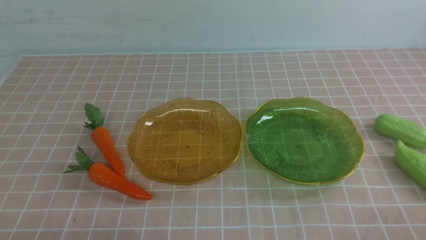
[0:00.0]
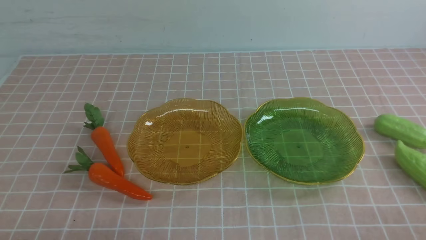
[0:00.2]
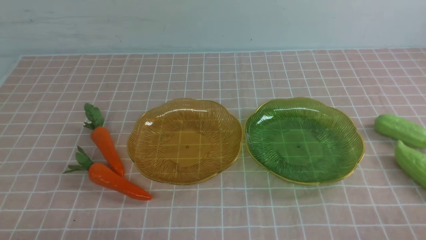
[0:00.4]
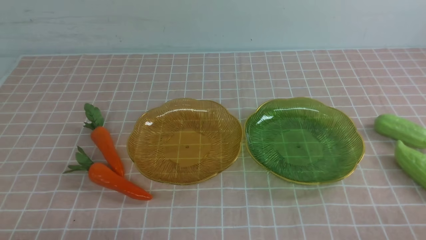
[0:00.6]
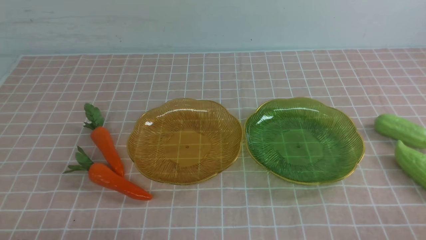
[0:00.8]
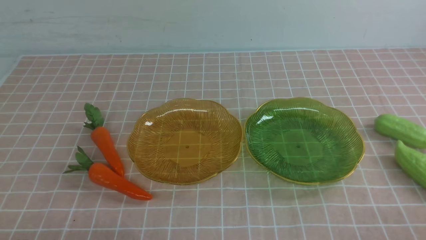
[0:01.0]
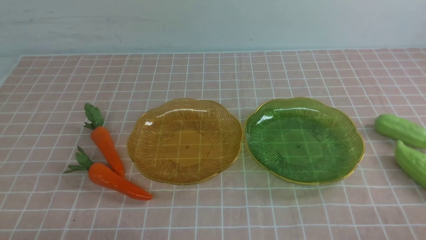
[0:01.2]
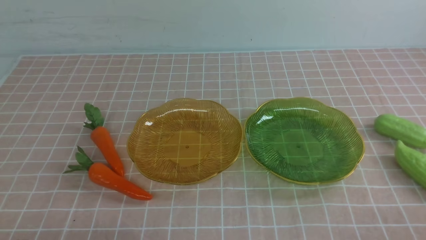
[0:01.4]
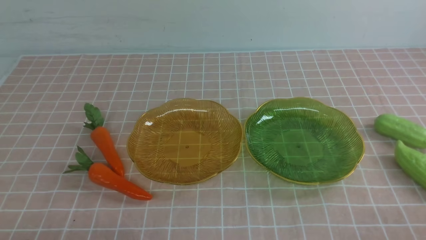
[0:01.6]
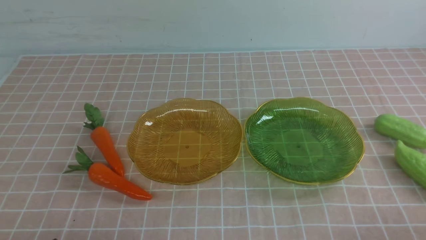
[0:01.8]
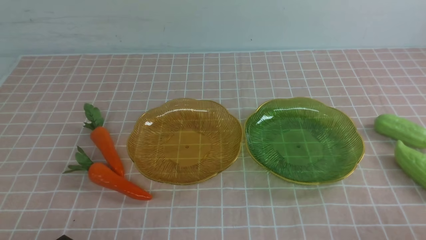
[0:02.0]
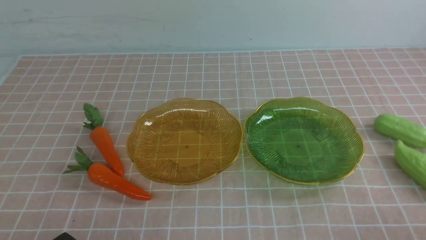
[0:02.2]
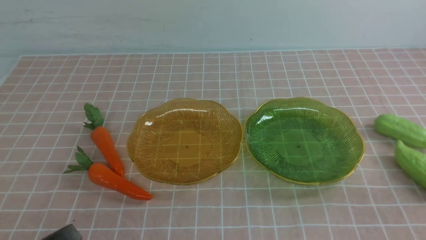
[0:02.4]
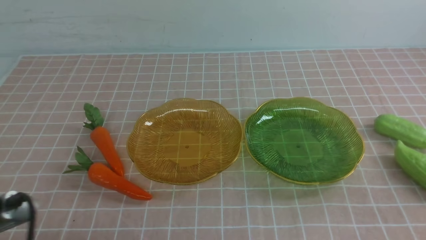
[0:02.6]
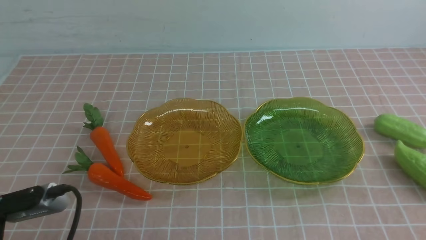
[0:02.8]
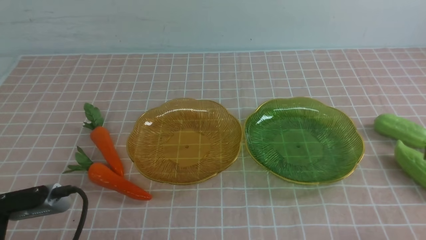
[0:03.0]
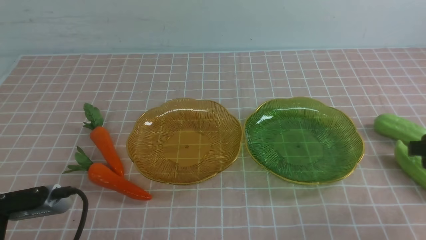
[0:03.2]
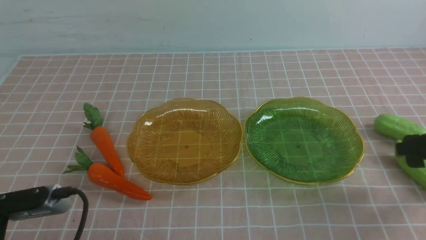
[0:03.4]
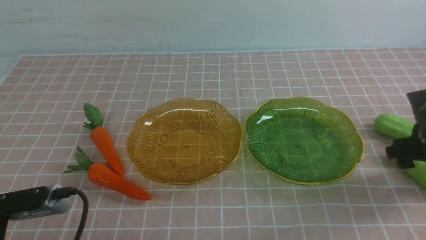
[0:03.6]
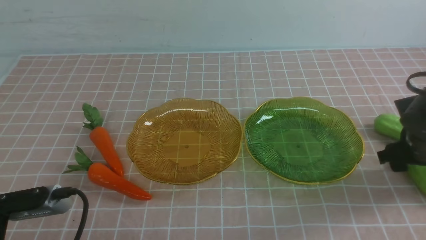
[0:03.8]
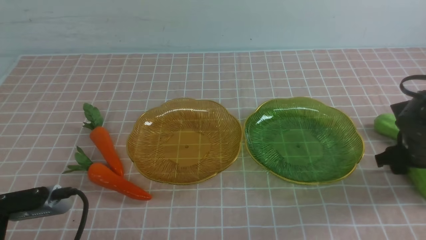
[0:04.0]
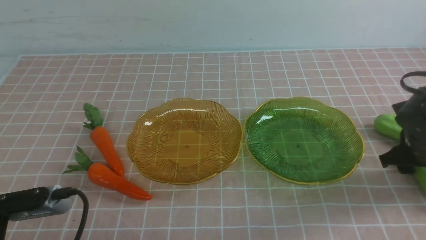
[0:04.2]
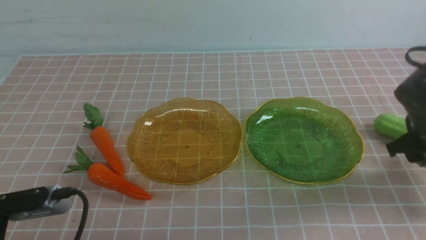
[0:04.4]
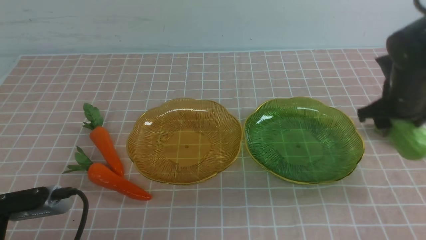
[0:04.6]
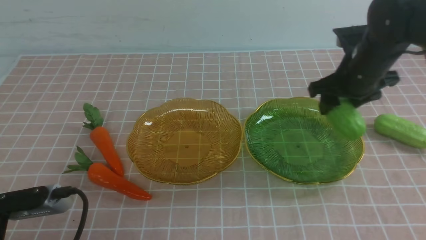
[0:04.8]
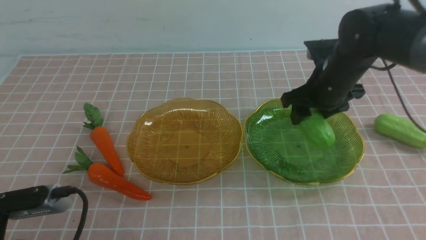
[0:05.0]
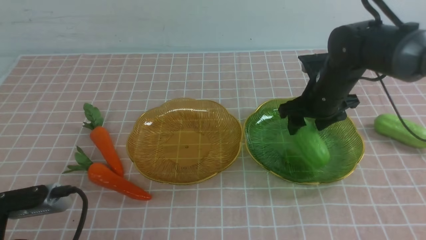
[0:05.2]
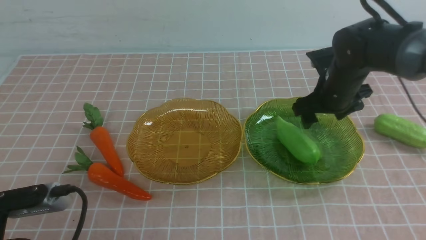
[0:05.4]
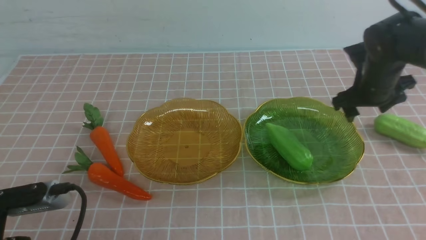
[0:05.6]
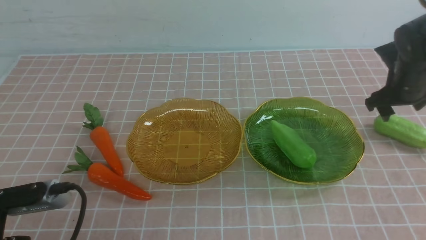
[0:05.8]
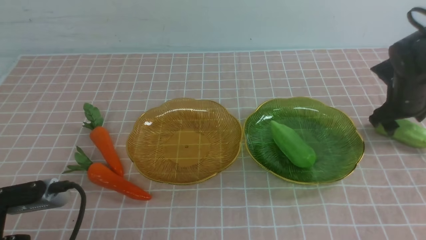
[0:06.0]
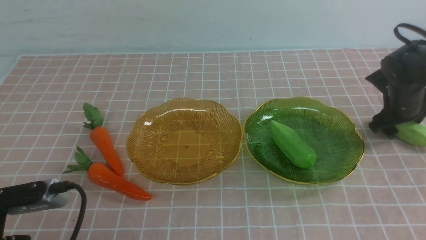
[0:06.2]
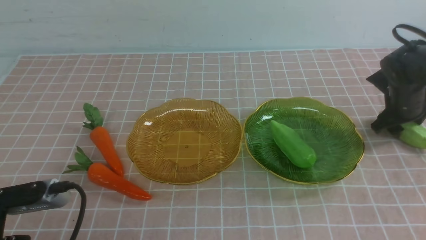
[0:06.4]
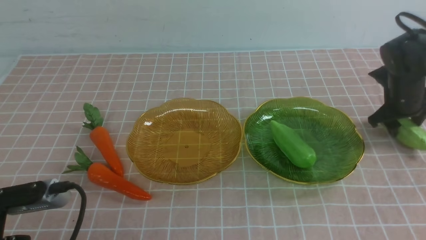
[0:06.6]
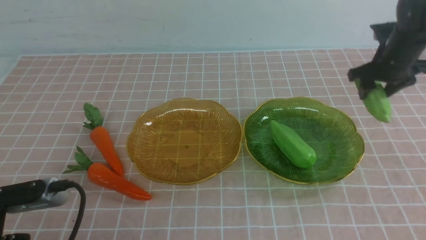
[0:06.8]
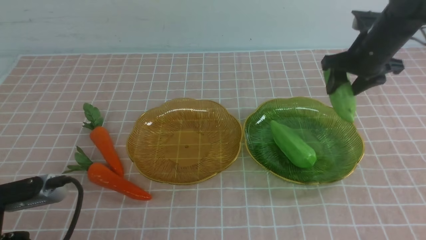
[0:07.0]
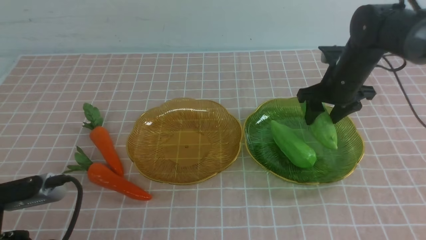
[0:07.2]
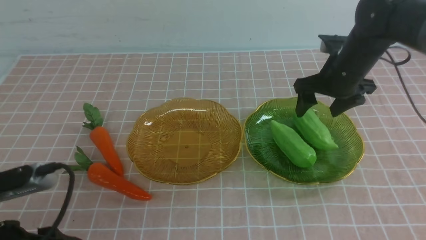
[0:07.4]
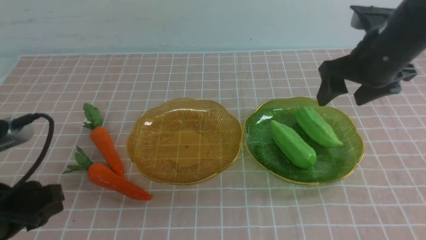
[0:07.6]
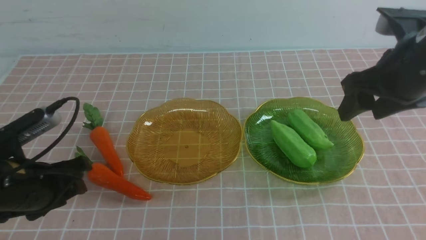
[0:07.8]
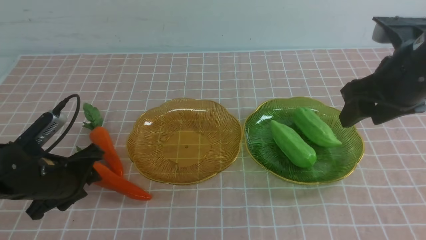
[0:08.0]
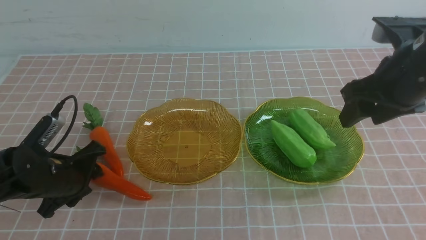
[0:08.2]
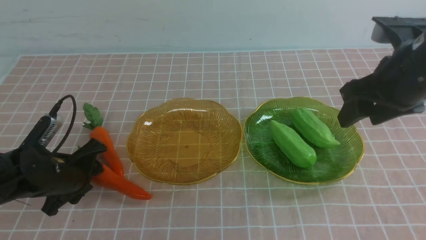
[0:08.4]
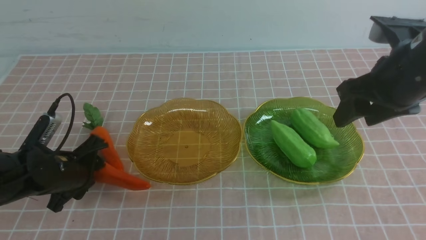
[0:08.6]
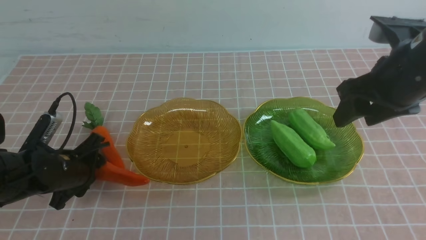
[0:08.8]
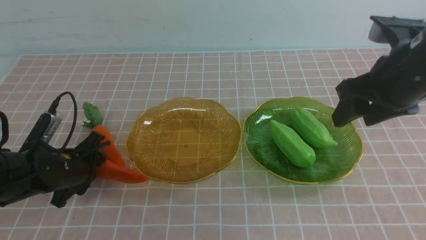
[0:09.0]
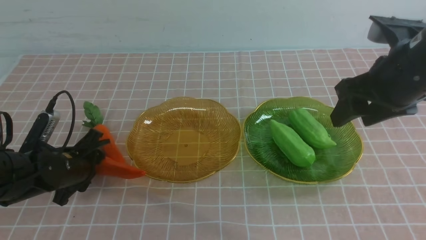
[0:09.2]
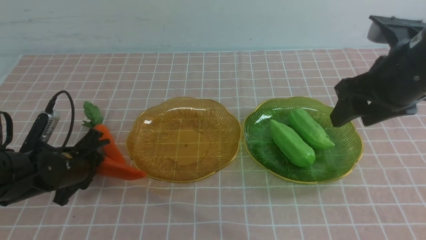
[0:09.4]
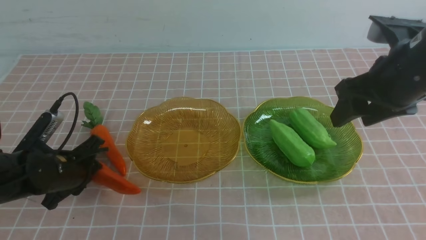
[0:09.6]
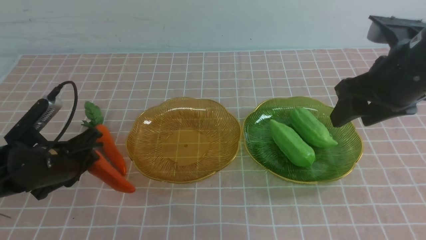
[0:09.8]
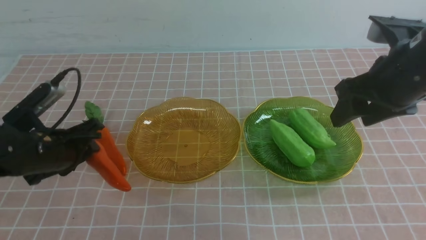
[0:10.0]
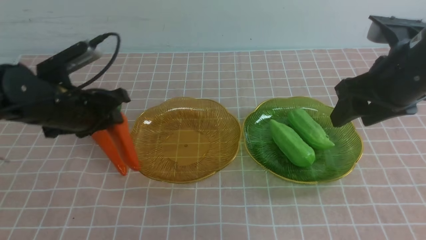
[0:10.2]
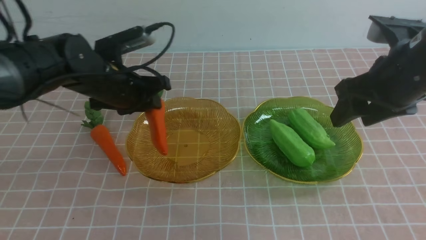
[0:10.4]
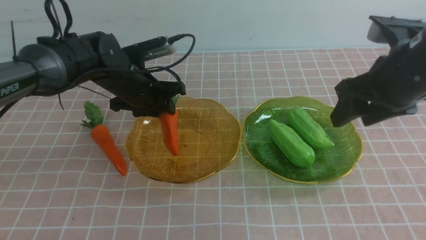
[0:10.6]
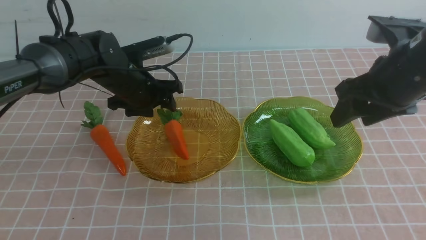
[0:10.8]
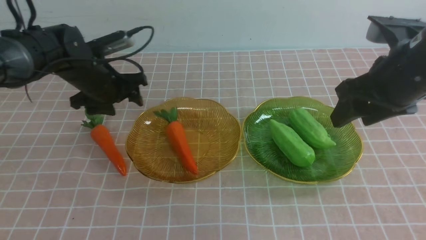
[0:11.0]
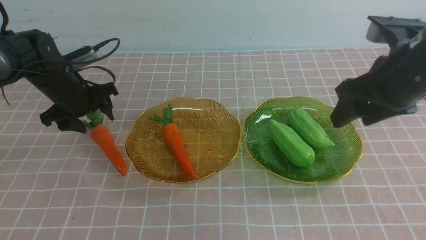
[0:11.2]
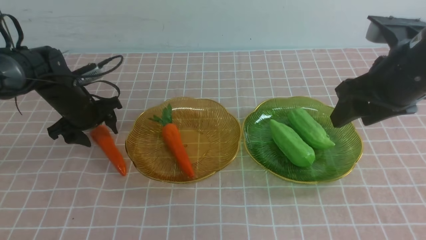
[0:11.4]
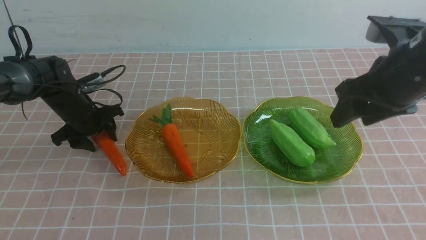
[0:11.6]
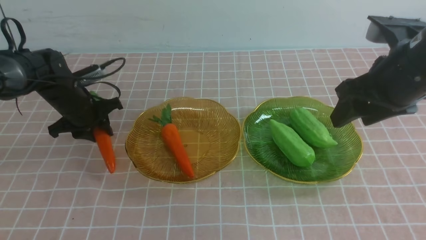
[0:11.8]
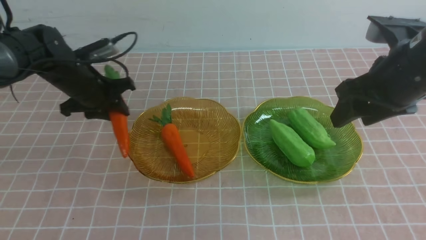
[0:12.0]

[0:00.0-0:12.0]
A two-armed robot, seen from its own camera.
Step, 0.0 to 5.0 s: use the right arm to grab a chayote and put it into the right plate.
Step, 5.4 to 7.2 s: use the right arm to grab a chayote and put it into the right plate.
Step, 7.4 to 10.6 s: use the left arm to grab a carrot and put it into the left plate.
1.6 to 3.0 s: The left gripper moves upward, approximately 5 cm.
3.0 to 4.4 s: The right gripper moves forward and to the left, approximately 15 cm.
4.4 to 6.0 s: The right gripper travels to the right and forward by about 10 cm.
6.0 to 7.6 s: The left gripper is displaced forward and downward by approximately 20 cm, and opens up. The right gripper travels backward, upward and to the left by approximately 20 cm.
7.6 to 9.0 s: The grippers stay close to where they were, moving slightly.
9.0 to 10.4 s: The left gripper travels forward by some 15 cm, and opens up.
10.4 to 12.0 s: The left gripper shifts approximately 15 cm to the right. The right gripper is displaced backward and upward by roughly 15 cm, and closes.

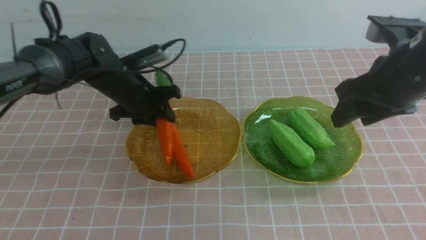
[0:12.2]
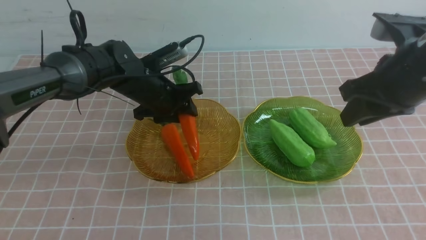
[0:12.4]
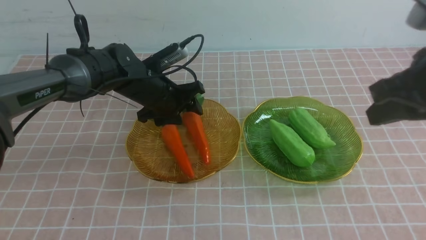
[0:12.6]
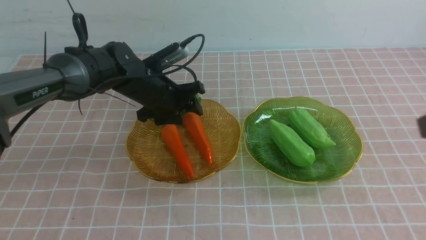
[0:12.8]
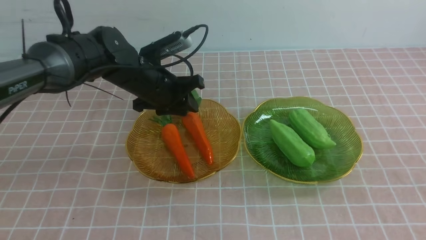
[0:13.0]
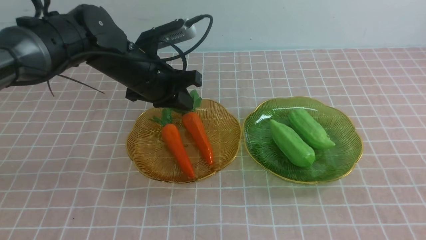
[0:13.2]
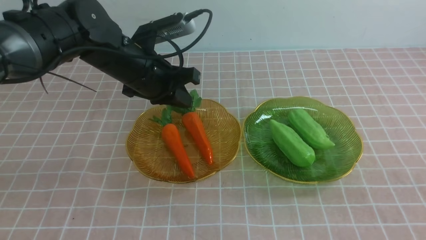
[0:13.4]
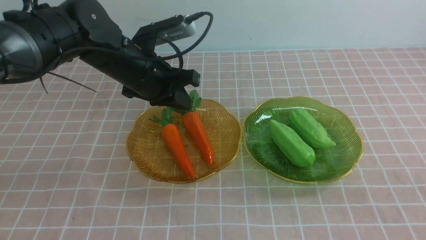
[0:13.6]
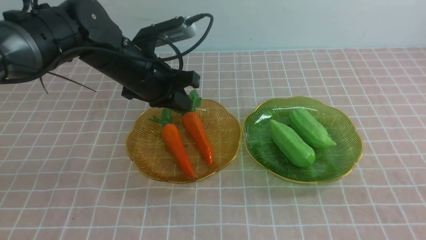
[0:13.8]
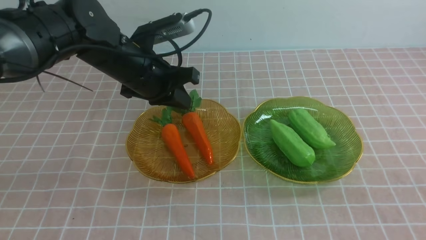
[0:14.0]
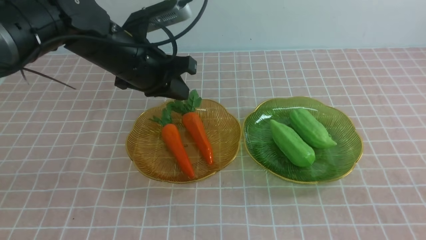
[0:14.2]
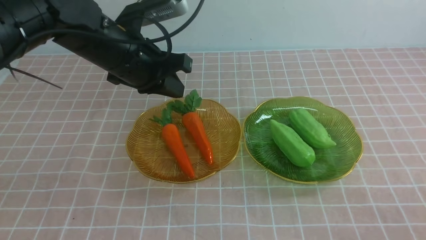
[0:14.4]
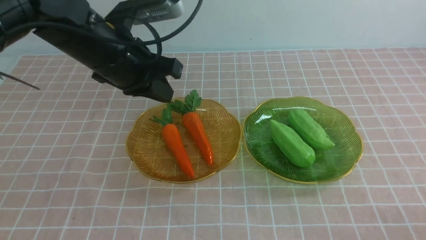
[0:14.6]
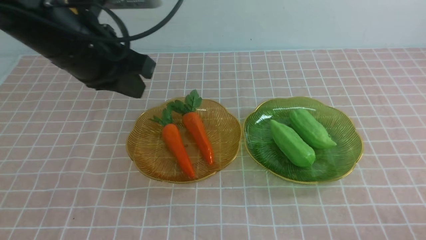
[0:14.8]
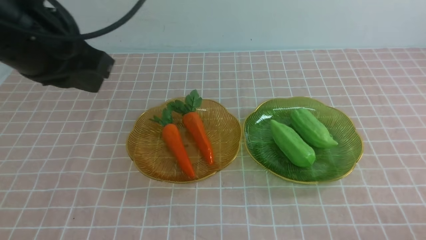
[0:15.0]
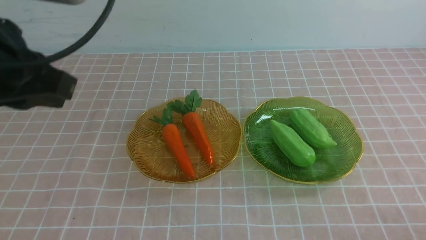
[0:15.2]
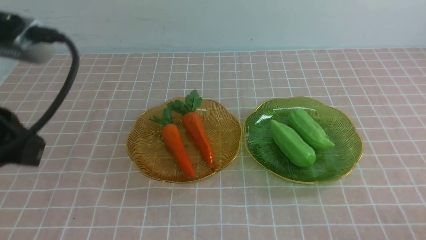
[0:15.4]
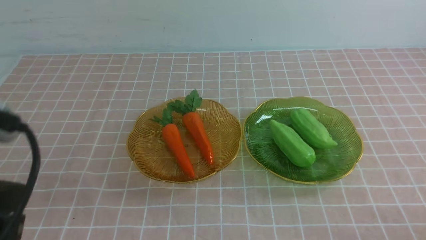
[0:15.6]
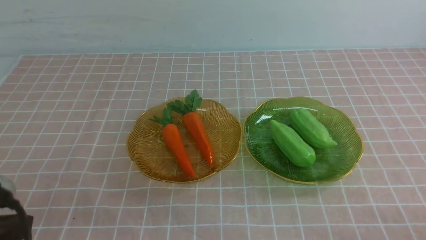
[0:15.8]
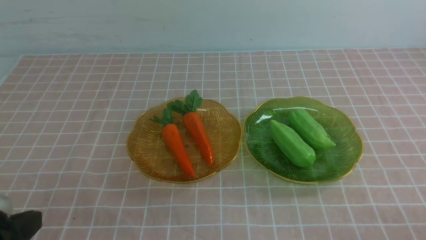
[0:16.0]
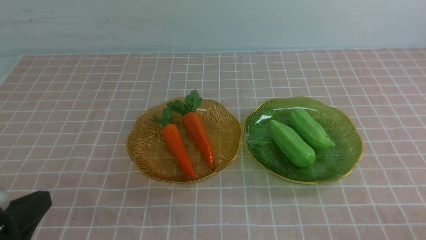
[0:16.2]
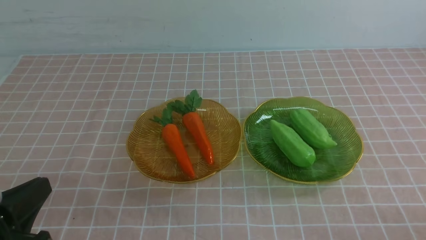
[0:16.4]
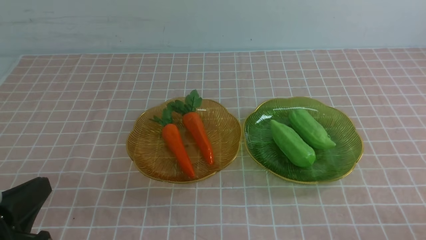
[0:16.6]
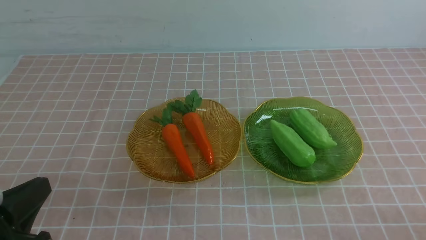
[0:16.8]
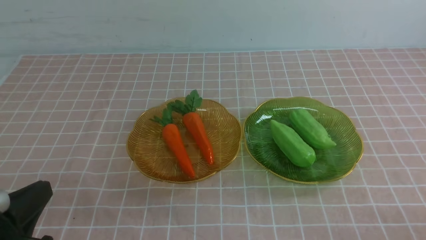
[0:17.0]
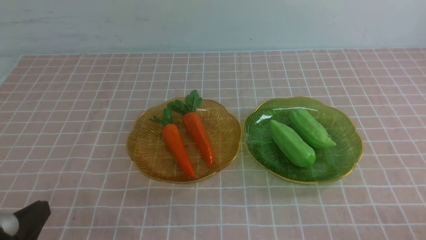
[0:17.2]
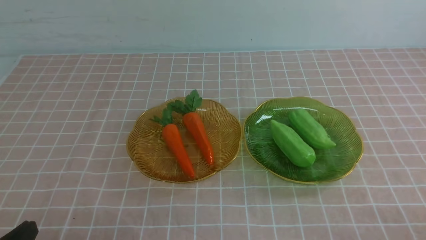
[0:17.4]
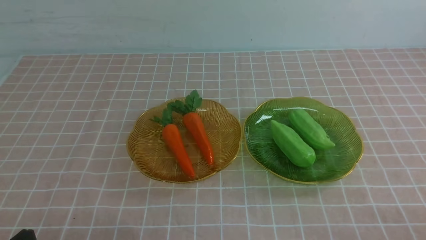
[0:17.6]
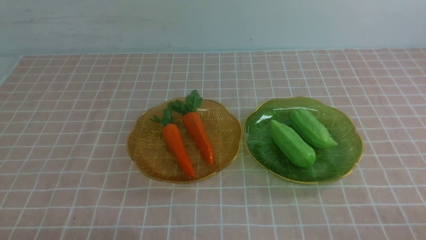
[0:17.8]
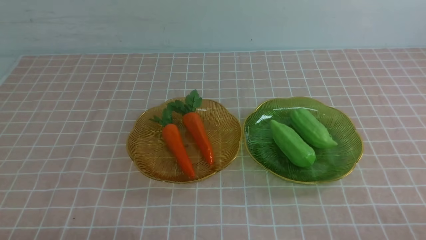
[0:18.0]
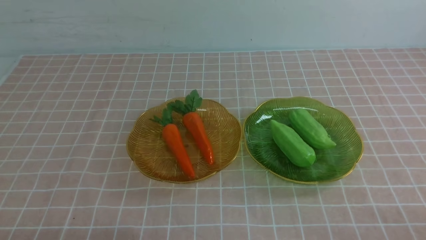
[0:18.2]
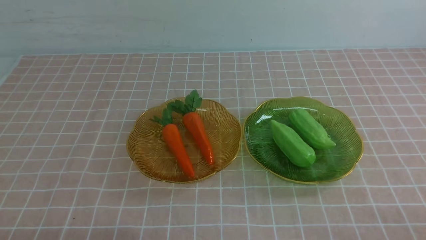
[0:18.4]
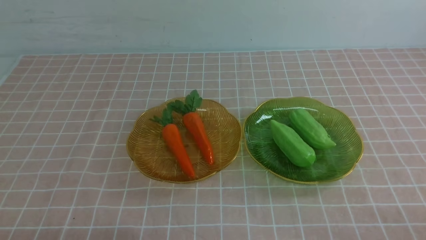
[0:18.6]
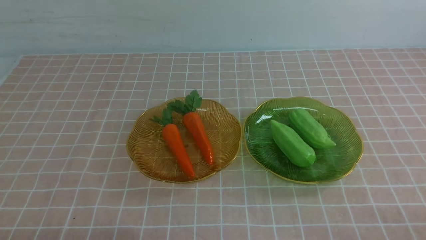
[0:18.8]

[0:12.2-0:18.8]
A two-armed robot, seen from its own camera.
12.2 to 13.8 s: The right gripper is displaced downward by some 15 cm; the left gripper heads upward and backward, covering some 10 cm, and closes its fingers.
13.8 to 15.4 s: The left gripper heads backward, covering approximately 25 cm.
15.4 to 17.2 s: The left gripper heads downward, covering approximately 10 cm.
17.2 to 18.8 s: The left gripper moves roughly 5 cm.
